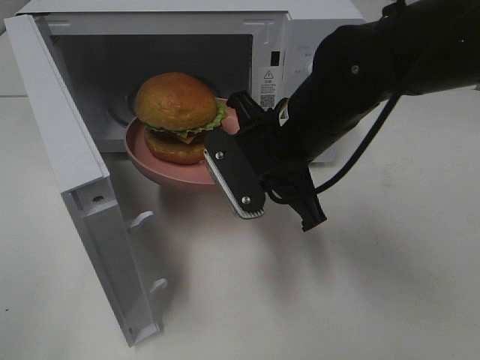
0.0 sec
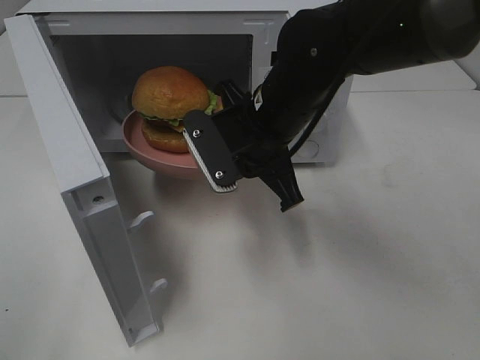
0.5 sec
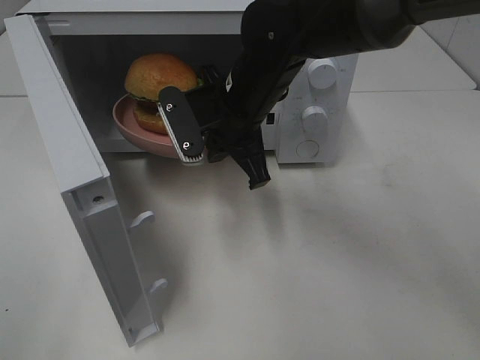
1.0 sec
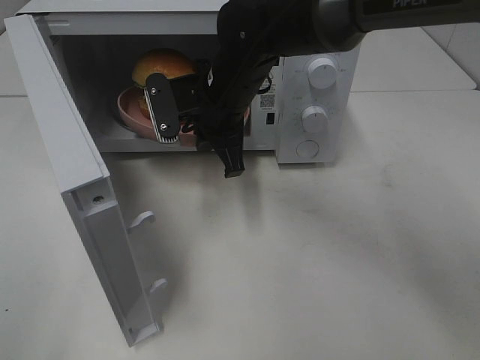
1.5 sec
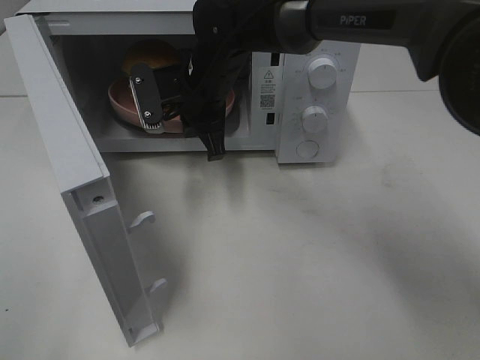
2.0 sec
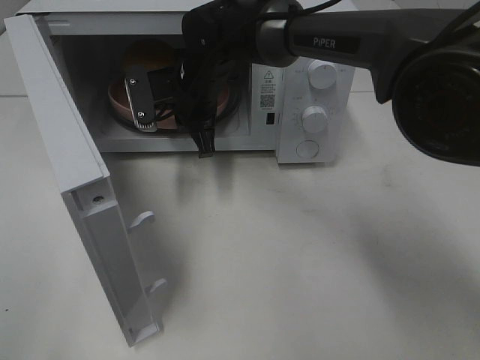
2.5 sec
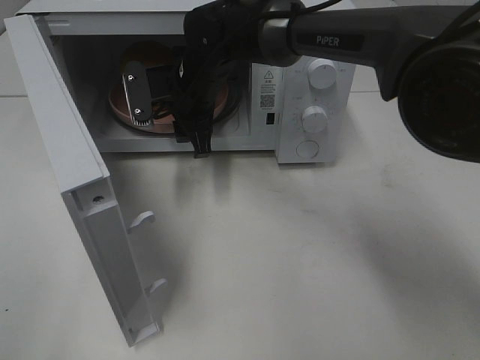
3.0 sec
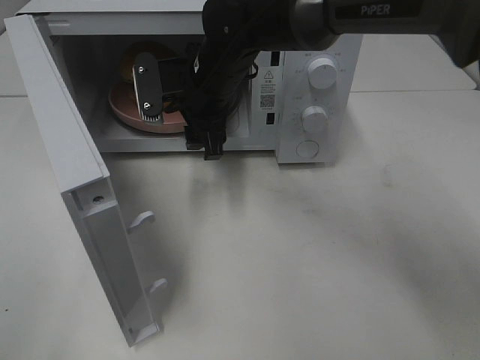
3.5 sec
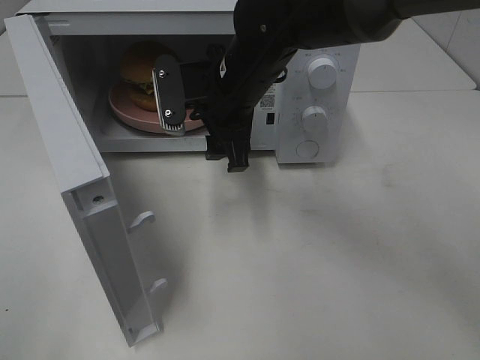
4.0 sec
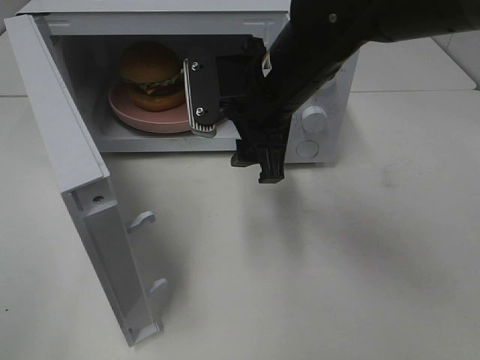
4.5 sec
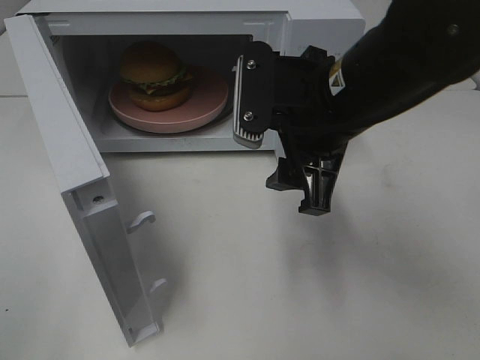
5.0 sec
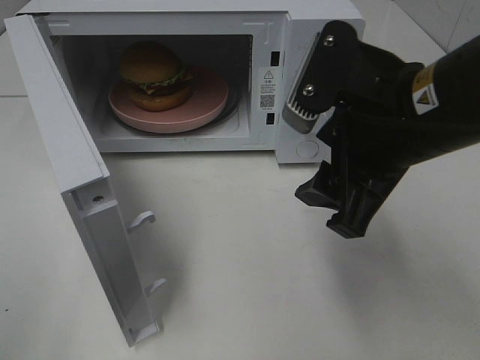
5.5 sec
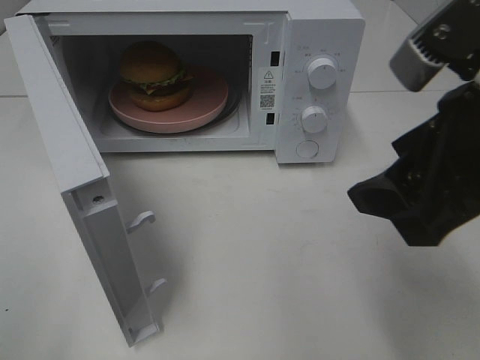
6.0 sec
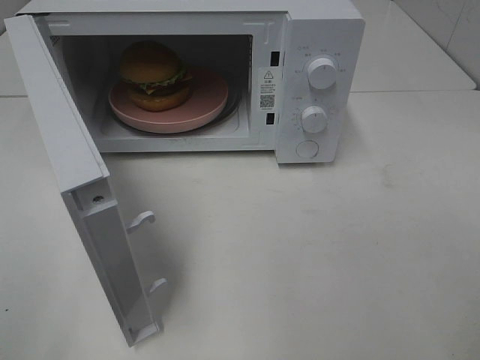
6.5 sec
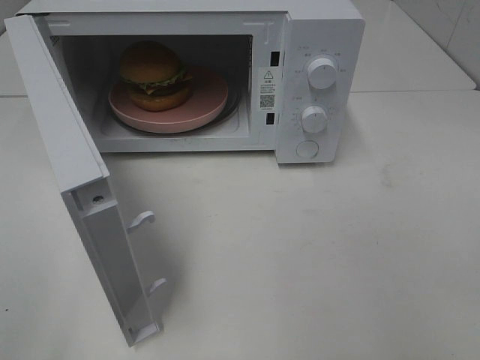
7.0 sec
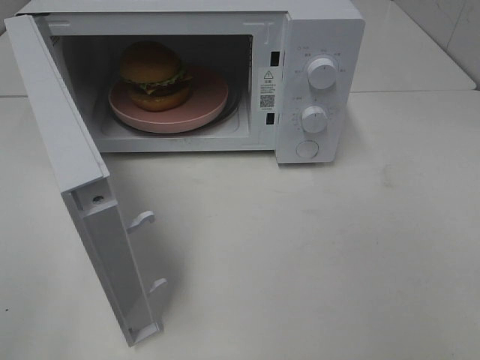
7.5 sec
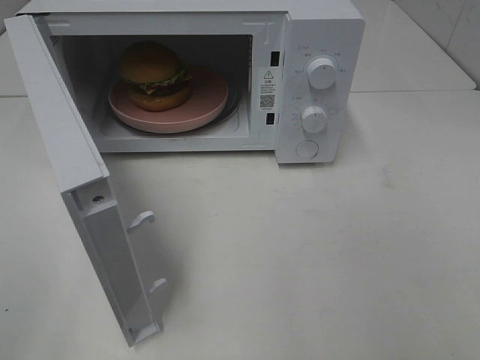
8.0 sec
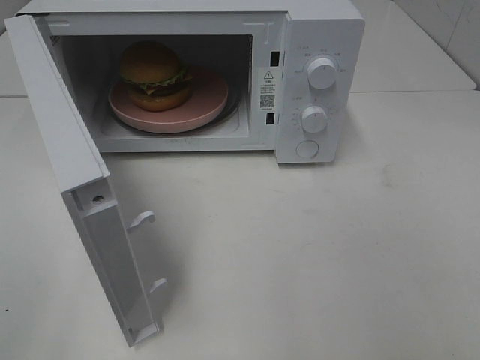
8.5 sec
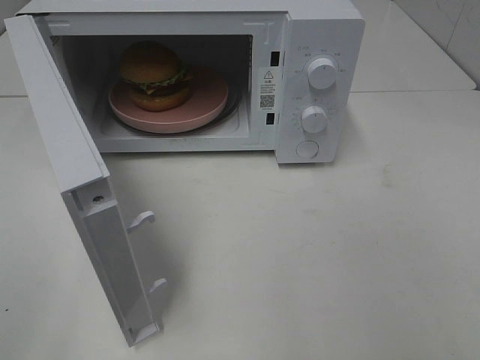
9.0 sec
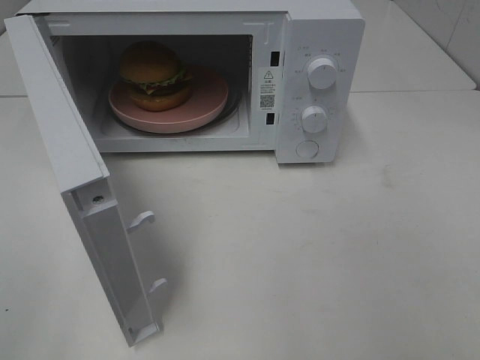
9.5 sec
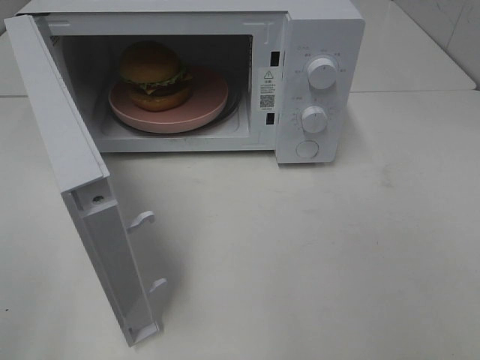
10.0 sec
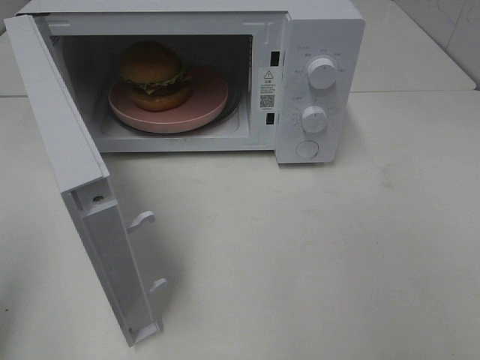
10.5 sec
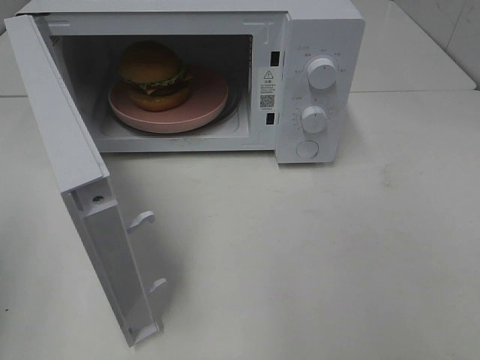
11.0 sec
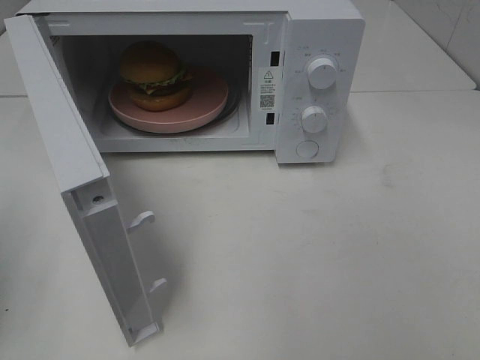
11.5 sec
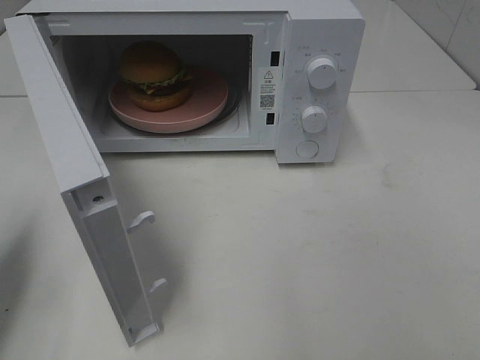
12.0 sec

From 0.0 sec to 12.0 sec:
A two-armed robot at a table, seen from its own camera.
Task of the whole recording: Heat the burger.
Step, from 0.0 sec to 2.5 sec: Right hand: place the plate in the microwave.
From 0.0 sec to 2.0 sec: The right gripper goes roughly 15 cm forward and to the left.
From 2.0 sec to 4.0 sec: The right gripper goes approximately 5 cm backward, and opens up.
From 4.0 sec to 6.0 sec: The right gripper is displaced backward, to the right and upward by some 30 cm.
From 6.0 sec to 8.0 sec: The right gripper heads backward and to the right, covering some 20 cm.
From 10.0 sec to 12.0 sec: The left gripper moves forward and downward, approximately 20 cm, and closes its fingers.

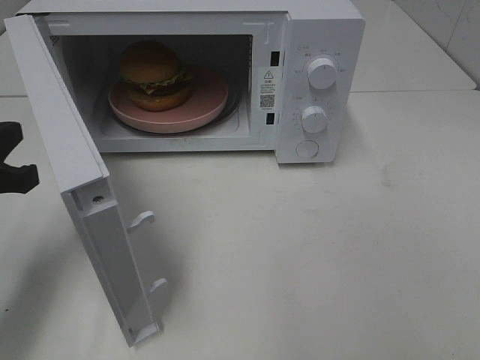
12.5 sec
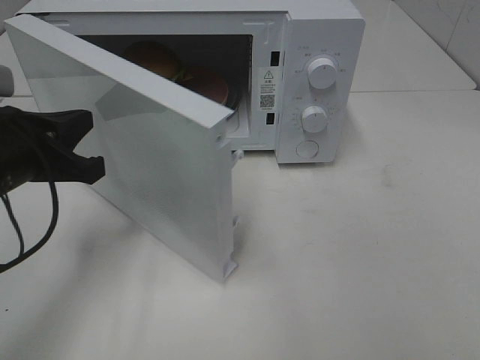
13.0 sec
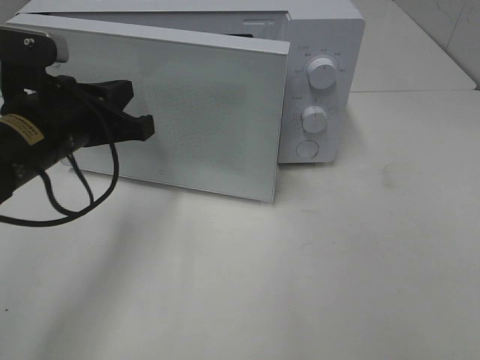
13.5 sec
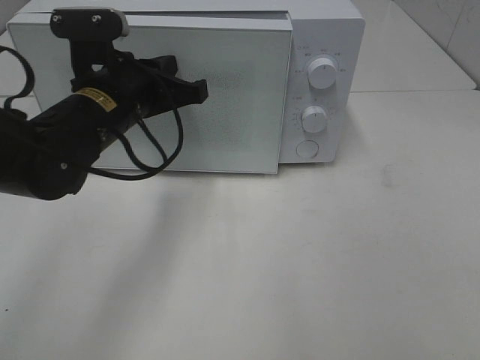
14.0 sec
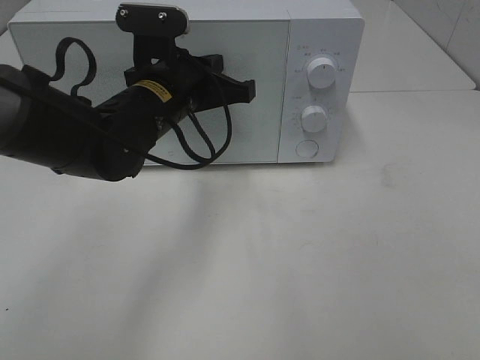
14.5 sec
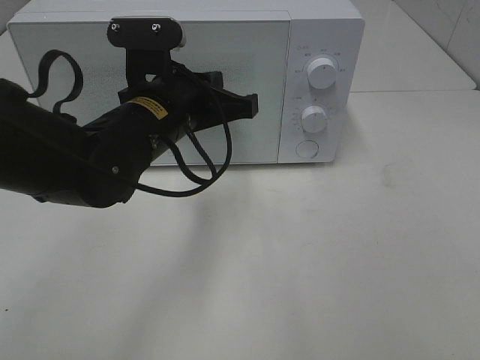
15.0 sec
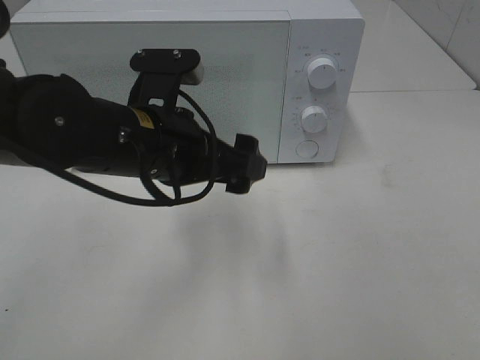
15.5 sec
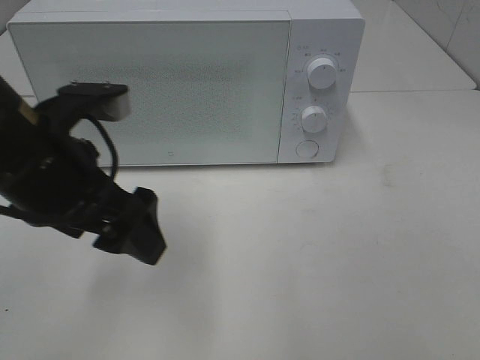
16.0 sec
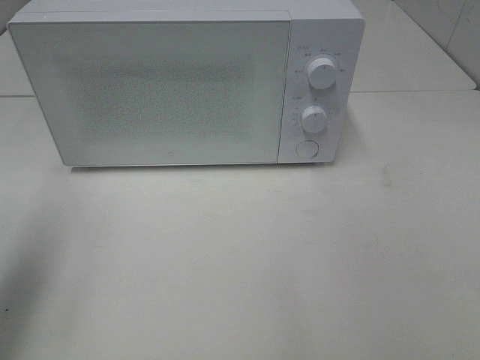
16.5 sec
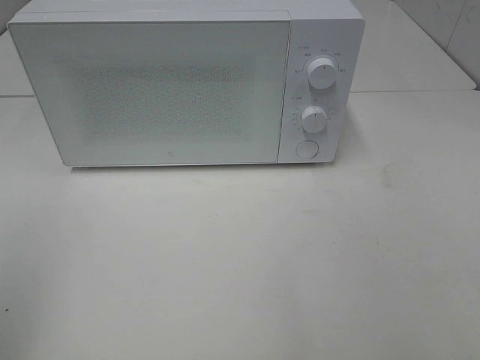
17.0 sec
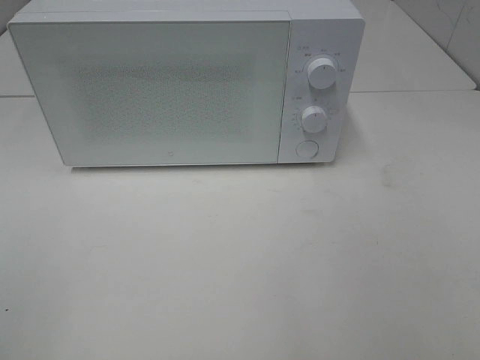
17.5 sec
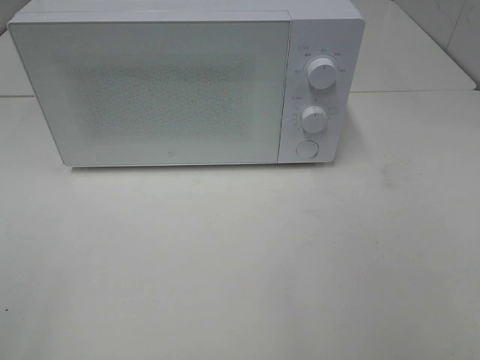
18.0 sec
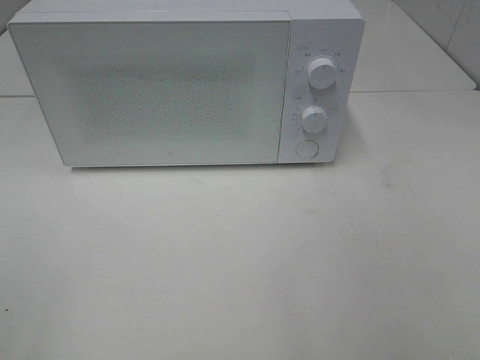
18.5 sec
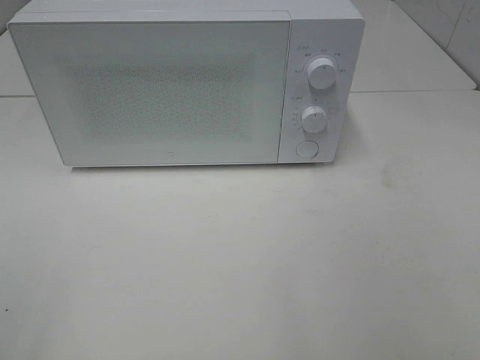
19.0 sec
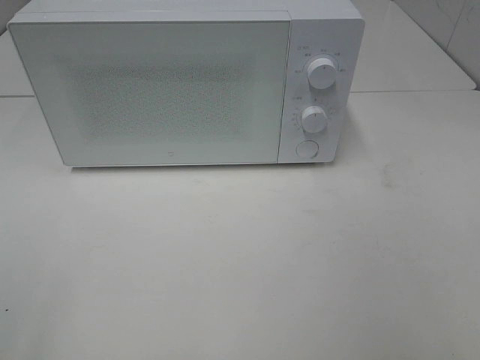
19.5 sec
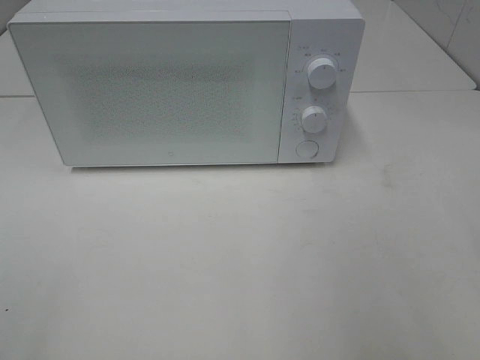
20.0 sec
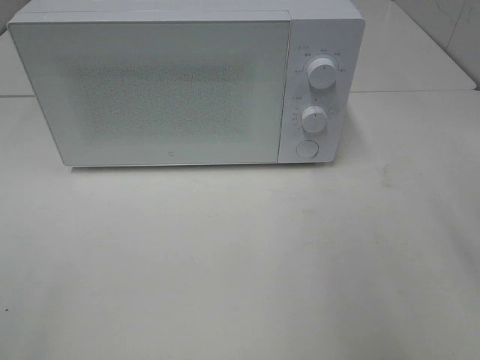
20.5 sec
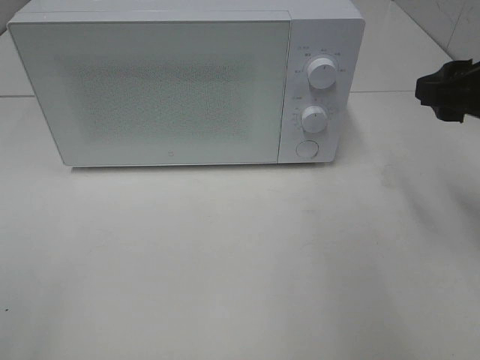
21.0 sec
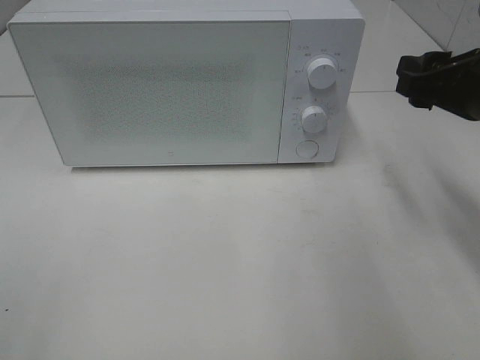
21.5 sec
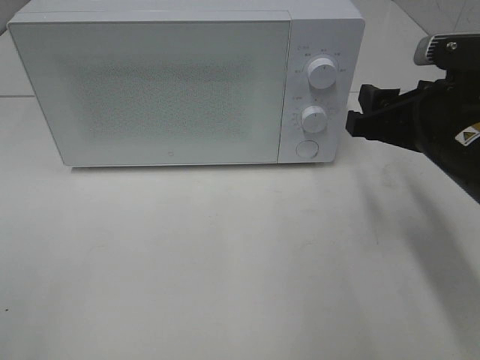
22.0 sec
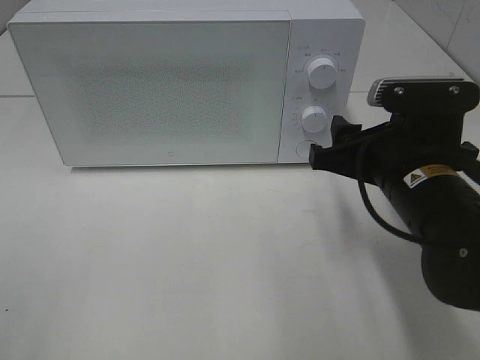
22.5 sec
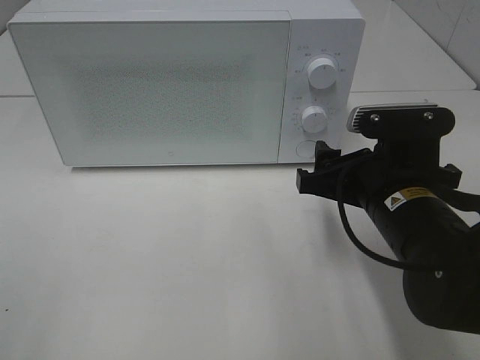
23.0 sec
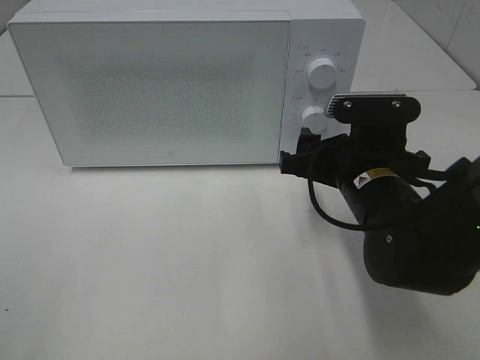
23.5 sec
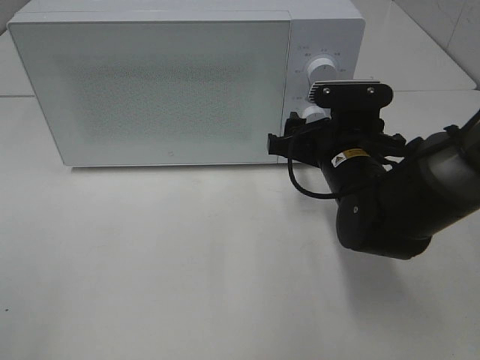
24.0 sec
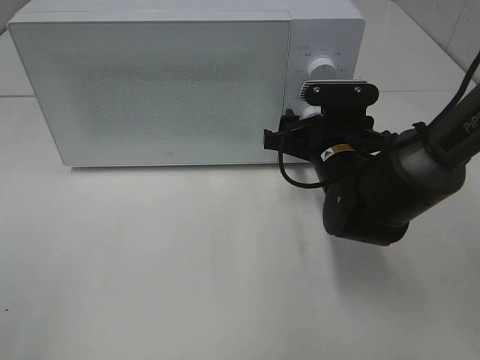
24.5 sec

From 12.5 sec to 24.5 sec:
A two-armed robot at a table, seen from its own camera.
Task of the whole recording: Heat the burger.
Step, from 12.5 sec to 15.5 sec: Left hand: close the microwave door.
From 12.5 sec to 14.5 sec: The left gripper shifts about 25 cm to the right and forward.
From 14.5 sec to 16.5 sec: The left gripper is displaced to the left, backward and upward by approximately 30 cm, and opens up.
From 16.5 sec to 18.5 sec: The left gripper travels backward by some 20 cm.
From 20.5 sec to 22.5 sec: The right gripper travels downward, to the left and forward by approximately 15 cm.
From 22.5 sec to 24.5 sec: The right gripper shifts about 10 cm forward and downward.

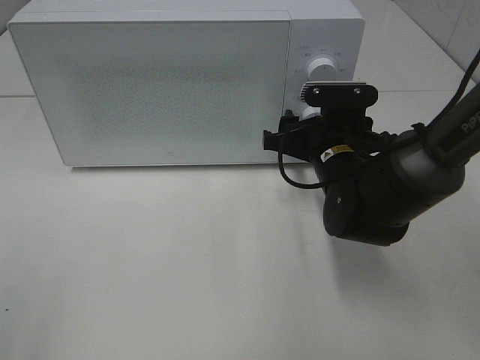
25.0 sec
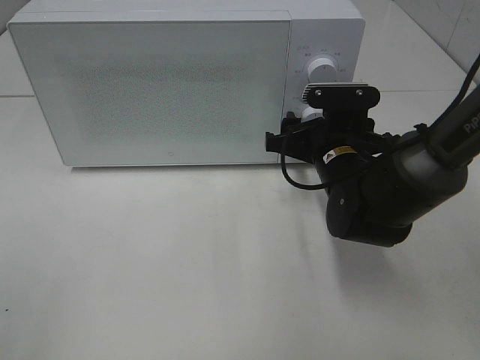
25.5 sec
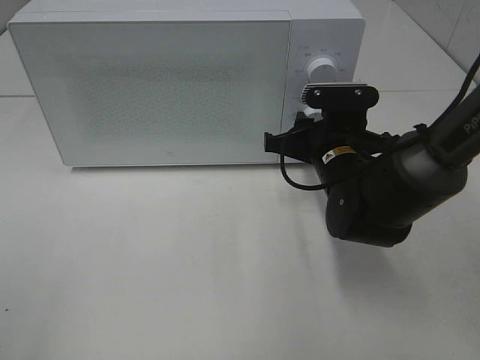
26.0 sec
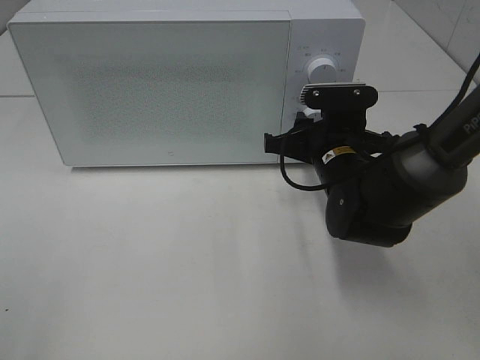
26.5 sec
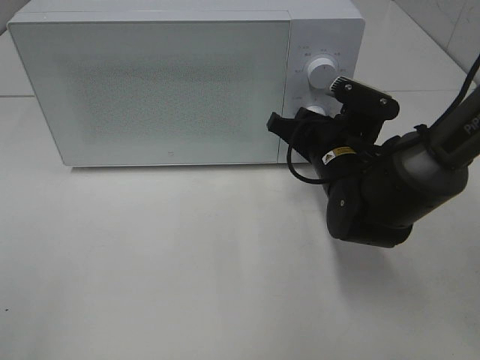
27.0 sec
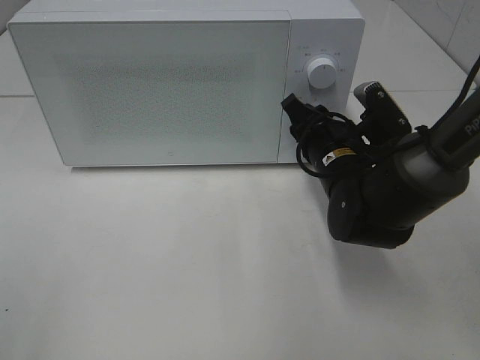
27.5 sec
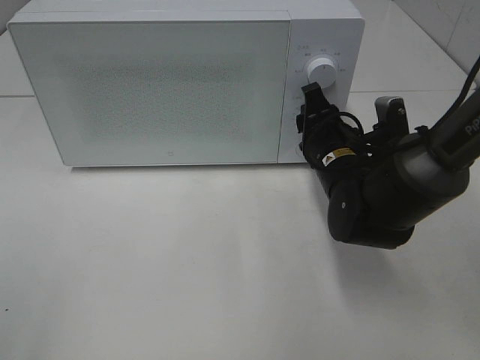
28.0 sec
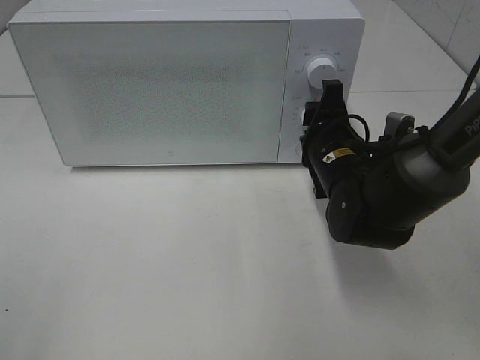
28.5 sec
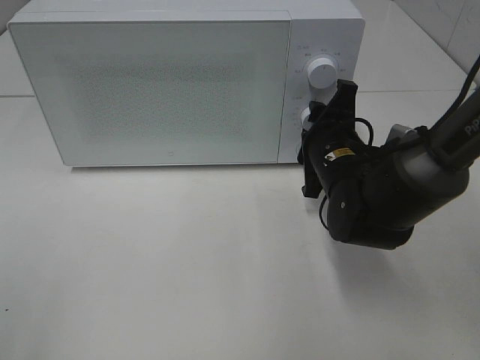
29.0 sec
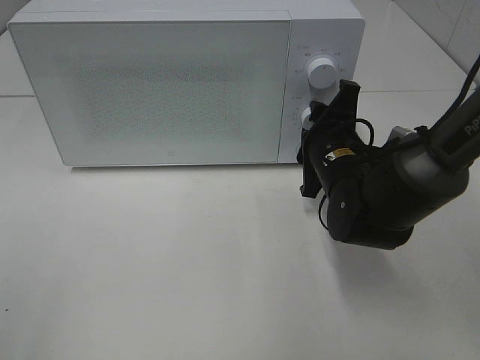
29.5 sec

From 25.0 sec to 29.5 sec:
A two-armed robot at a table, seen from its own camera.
Task of the whole recording: Heat the burger.
From 25.0 sec to 27.0 sec: The right gripper closes its fingers.
